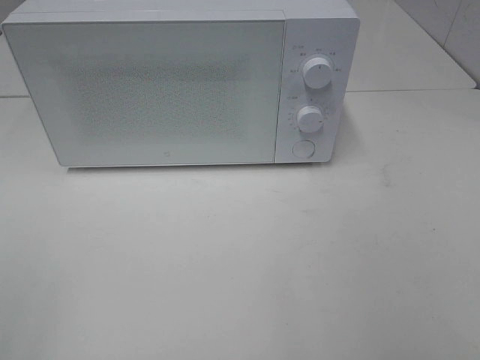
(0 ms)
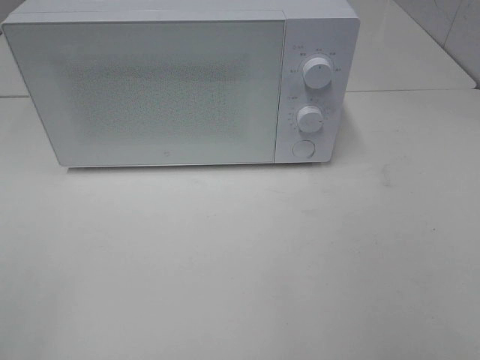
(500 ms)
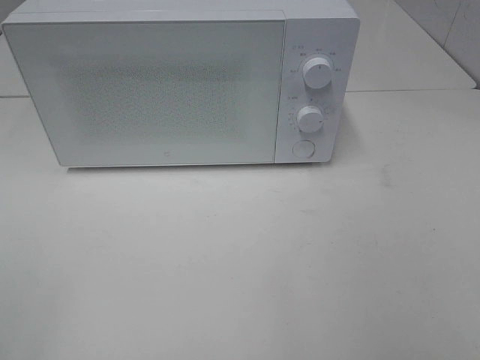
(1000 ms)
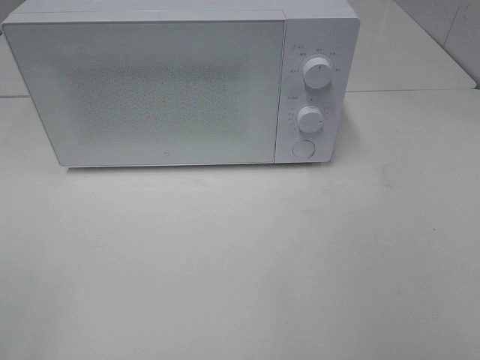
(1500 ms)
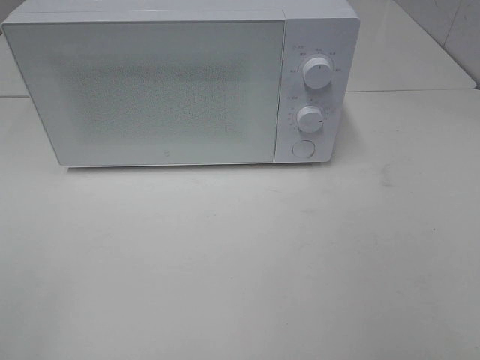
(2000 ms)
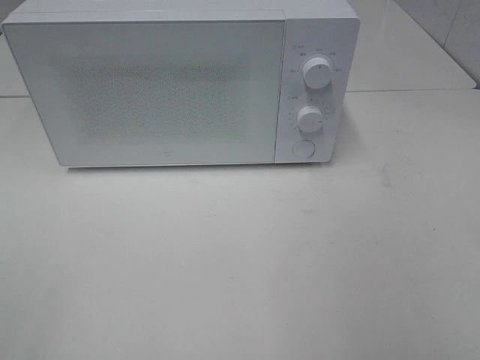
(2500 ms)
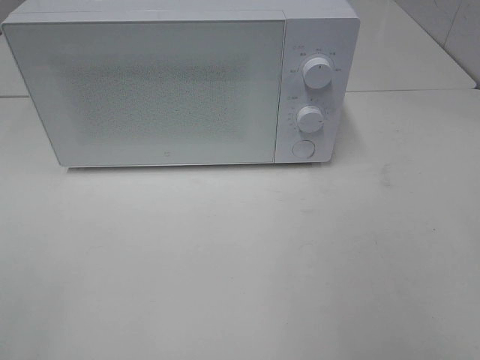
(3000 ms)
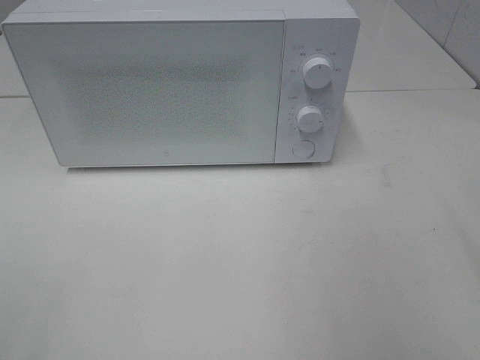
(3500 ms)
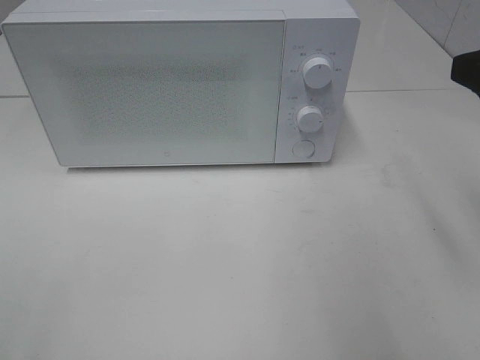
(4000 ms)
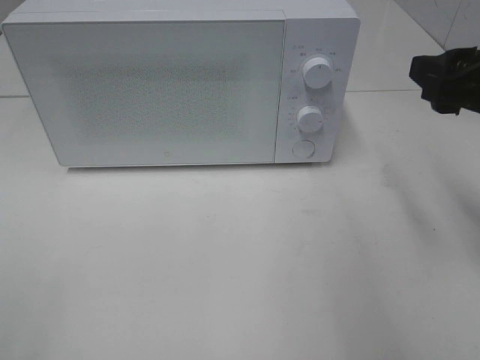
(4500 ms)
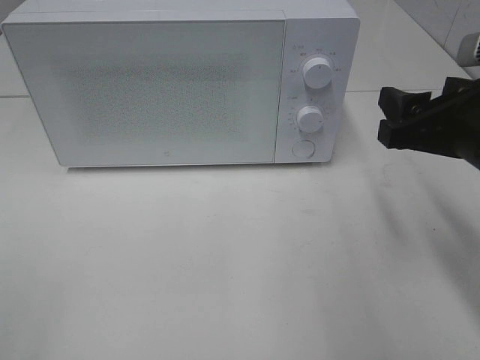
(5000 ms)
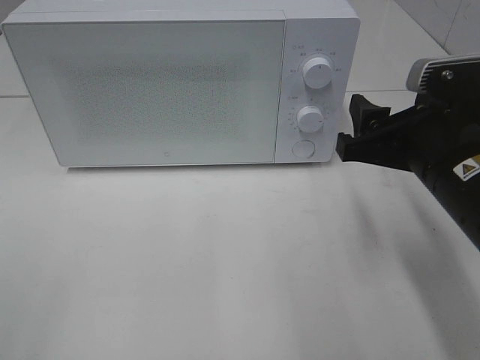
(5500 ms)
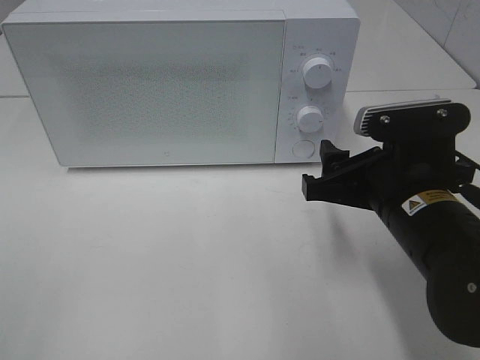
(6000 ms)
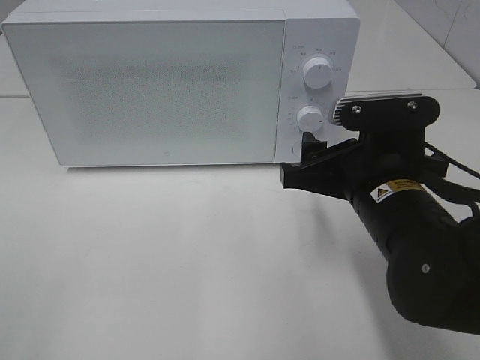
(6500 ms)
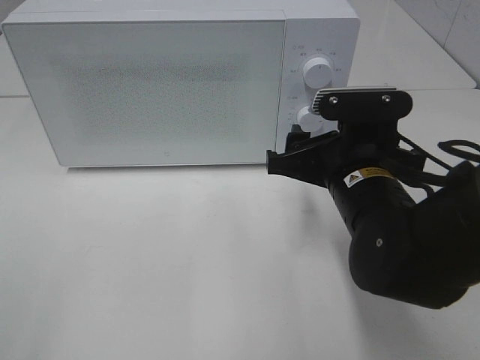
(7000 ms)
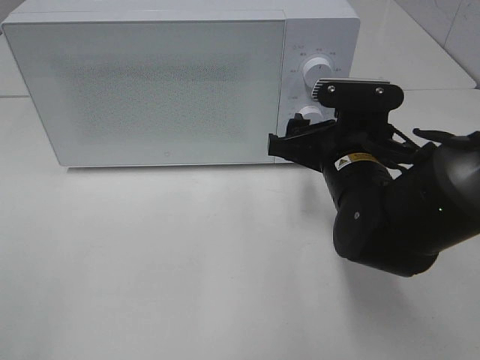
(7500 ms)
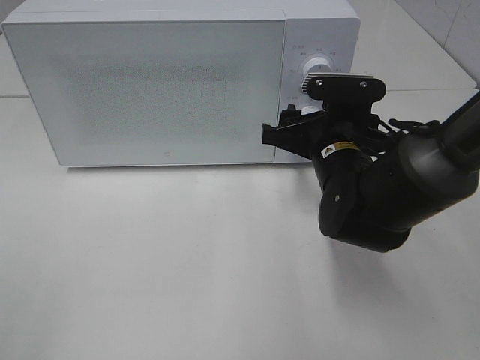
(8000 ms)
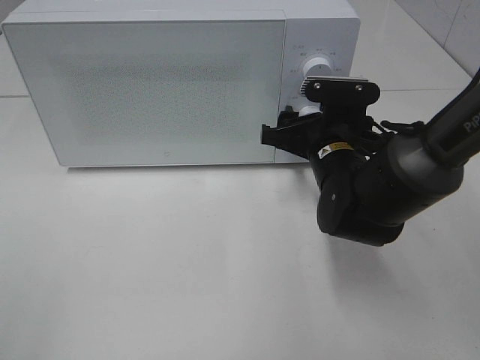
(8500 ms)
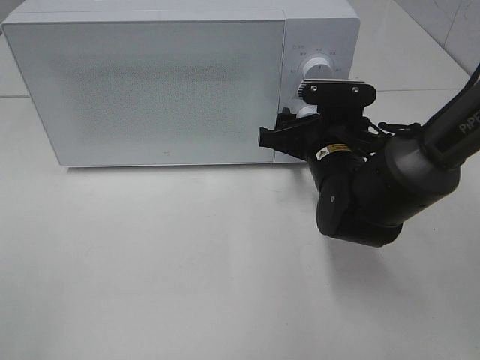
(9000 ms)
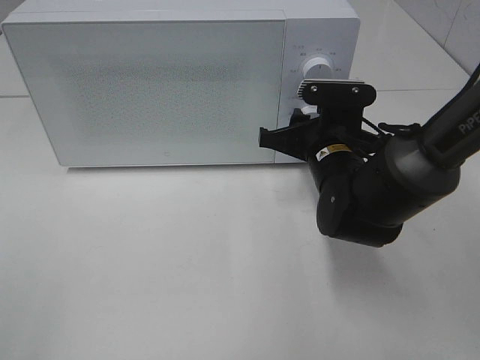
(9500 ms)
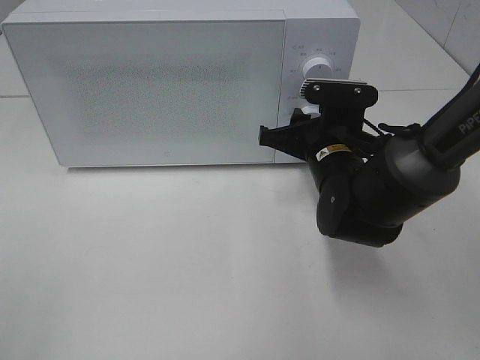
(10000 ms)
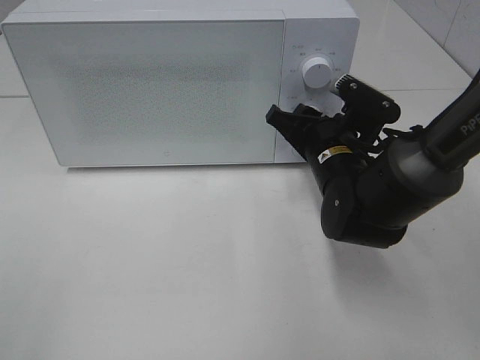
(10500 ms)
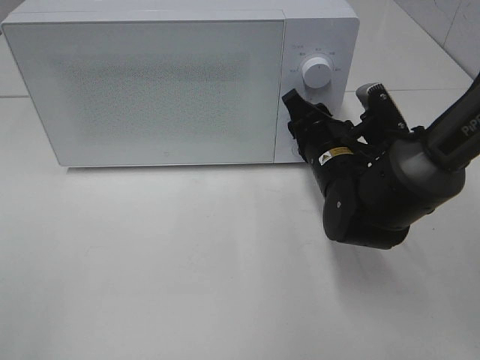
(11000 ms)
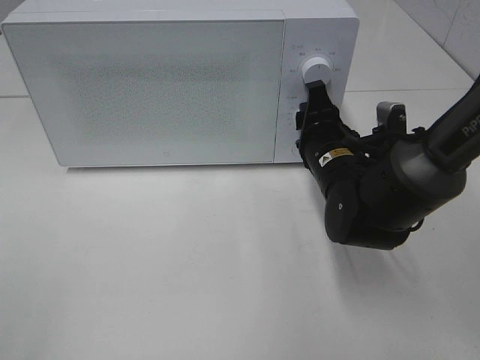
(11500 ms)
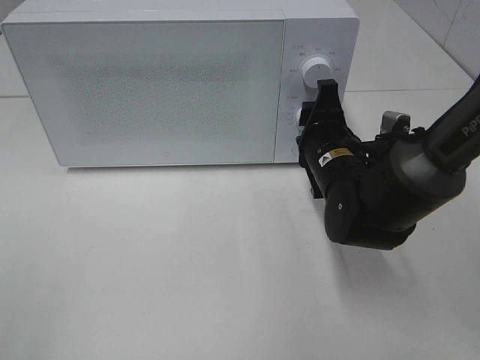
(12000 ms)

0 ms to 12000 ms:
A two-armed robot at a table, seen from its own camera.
Task of the whole recording: Heat the burger.
0 ms to 2000 ms: Neither gripper changes place.
2000 ms to 4000 ms: The right gripper travels forward by some 20 cm.
4000 ms to 6000 ms: The right gripper heads downward and to the left, covering some 15 cm.
6000 ms to 8000 ms: The right gripper is displaced forward by roughly 10 cm.
8000 ms to 10000 ms: The right gripper closes.

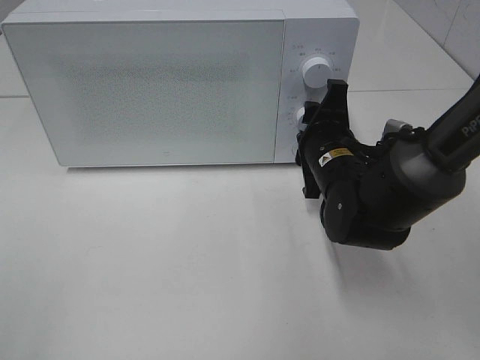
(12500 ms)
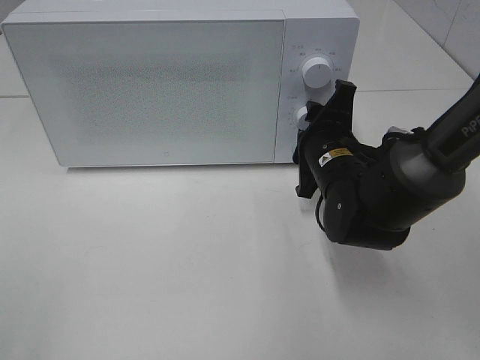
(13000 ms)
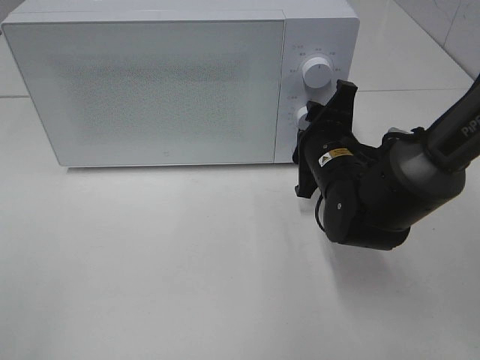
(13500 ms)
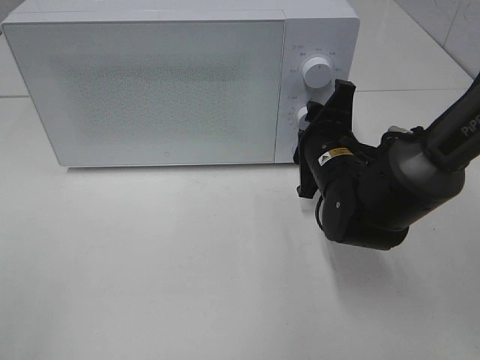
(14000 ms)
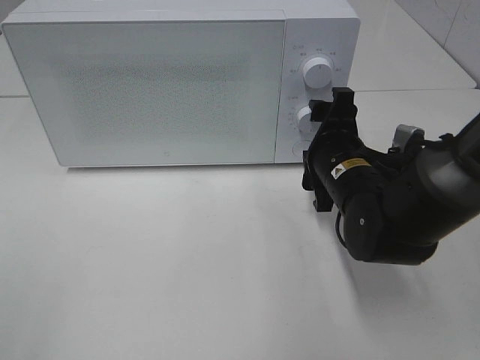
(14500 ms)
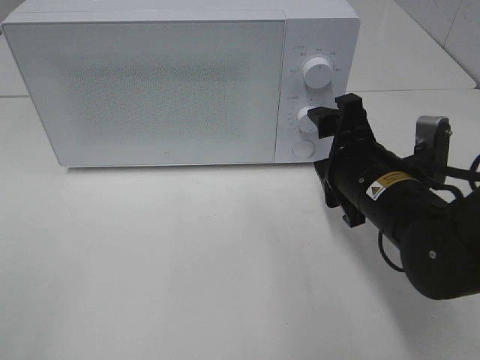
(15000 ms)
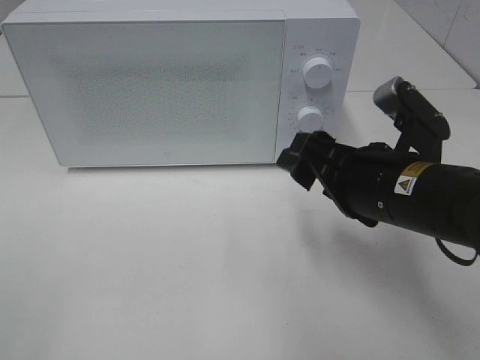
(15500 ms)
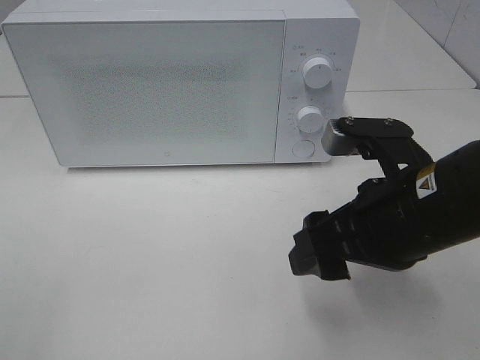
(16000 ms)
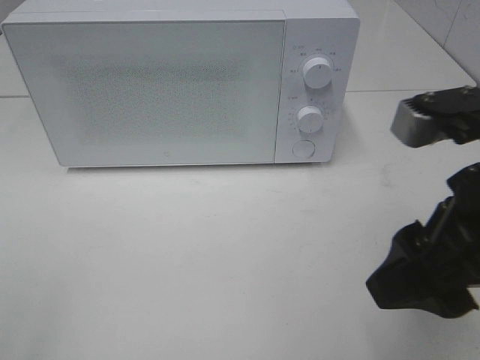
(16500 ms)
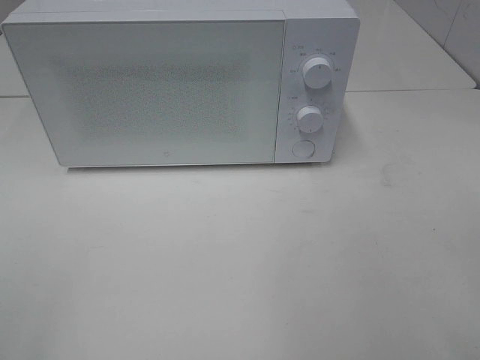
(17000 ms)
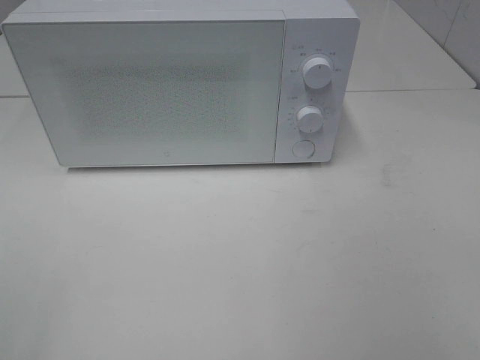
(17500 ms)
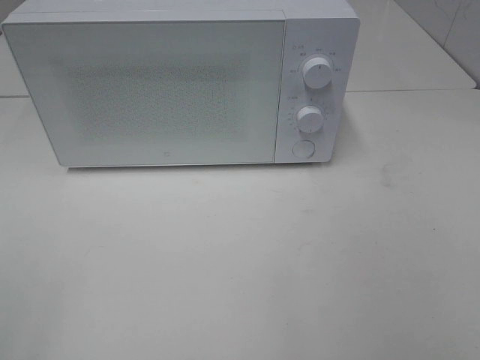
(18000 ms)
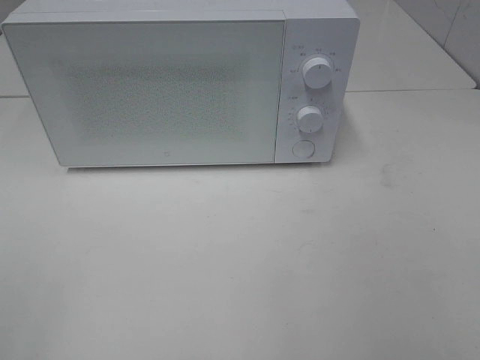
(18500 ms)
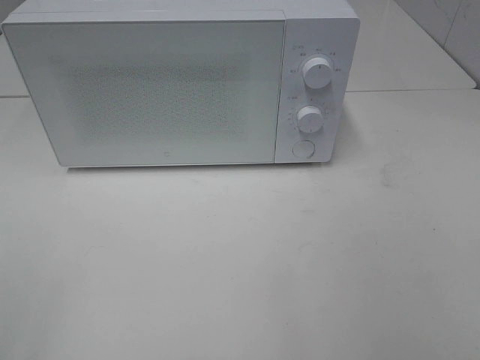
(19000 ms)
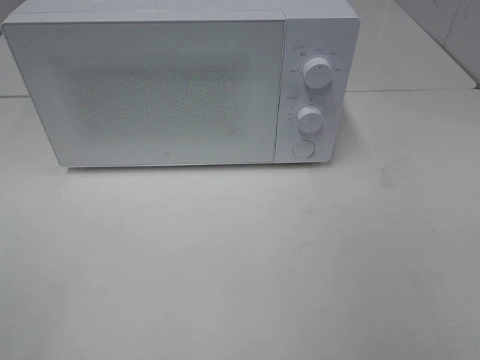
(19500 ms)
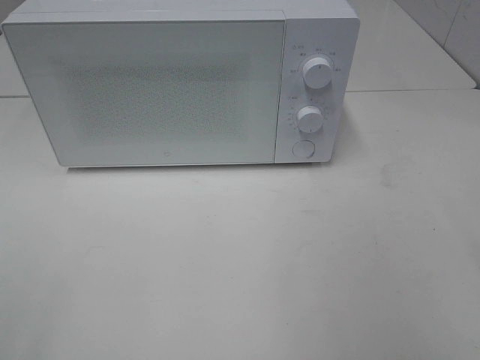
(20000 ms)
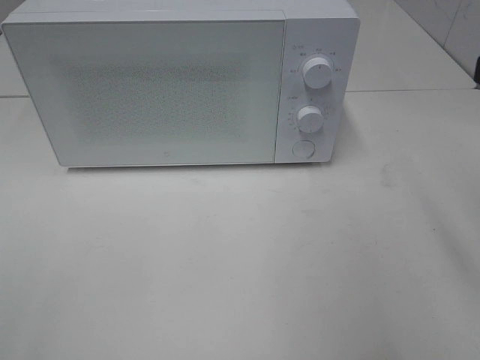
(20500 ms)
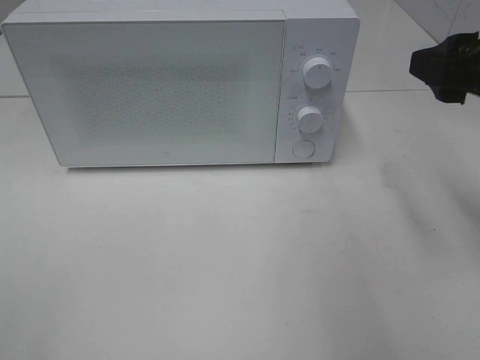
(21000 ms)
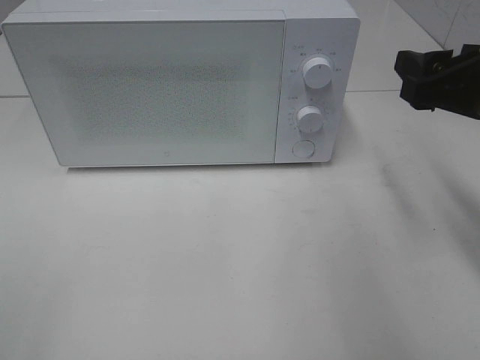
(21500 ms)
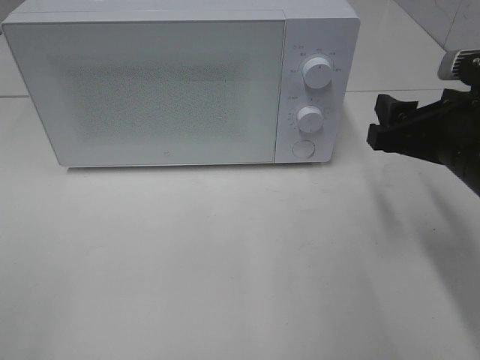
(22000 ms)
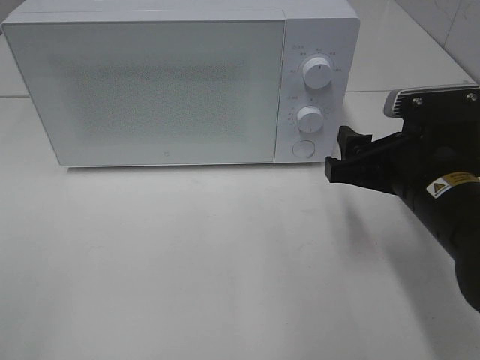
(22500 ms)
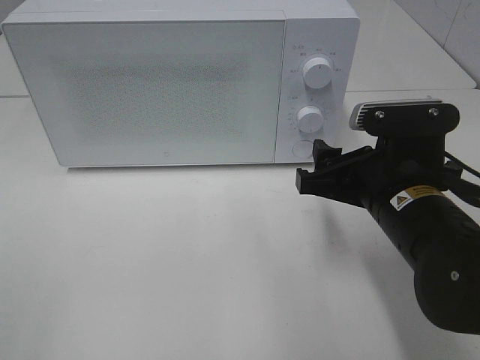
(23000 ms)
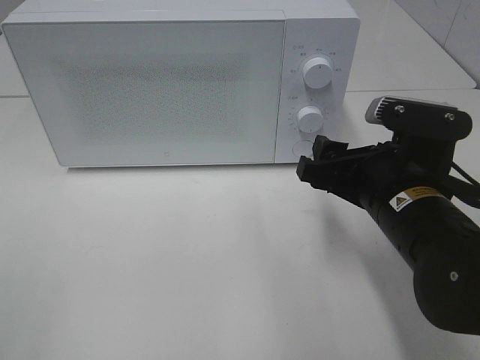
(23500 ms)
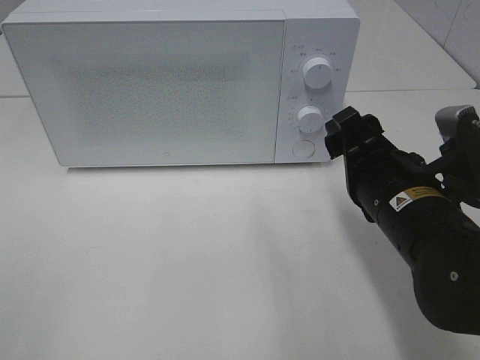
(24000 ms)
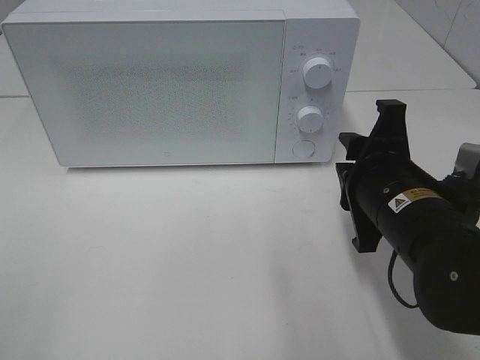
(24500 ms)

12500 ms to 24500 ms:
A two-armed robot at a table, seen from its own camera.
Task of the whole recording: Heat the burger.
Step, 12500 ms to 14500 ms: Right hand: twist timer button.
12500 ms to 14500 ms: The right gripper opens its fingers.
14500 ms to 16500 ms: The right gripper travels backward and upward by approximately 20 cm.
16500 ms to 18500 ms: The right gripper shifts approximately 20 cm backward and to the right.
20500 ms to 22500 ms: The right gripper moves downward, to the left and forward, about 15 cm.
22500 ms to 24500 ms: The right gripper closes up.

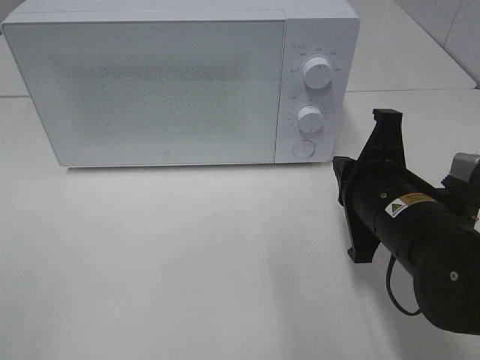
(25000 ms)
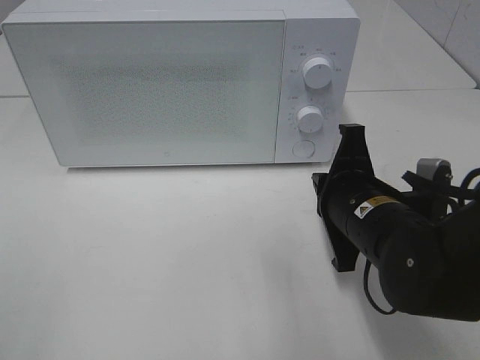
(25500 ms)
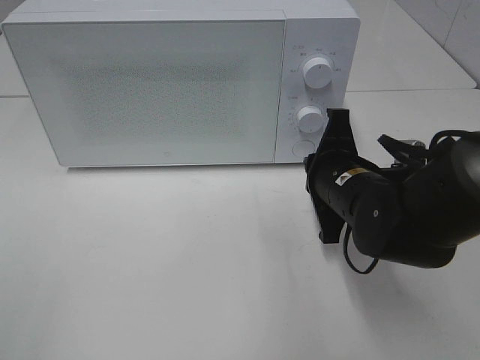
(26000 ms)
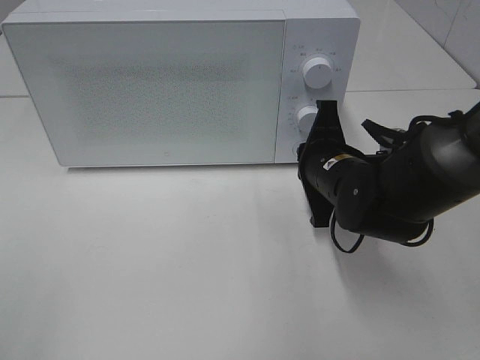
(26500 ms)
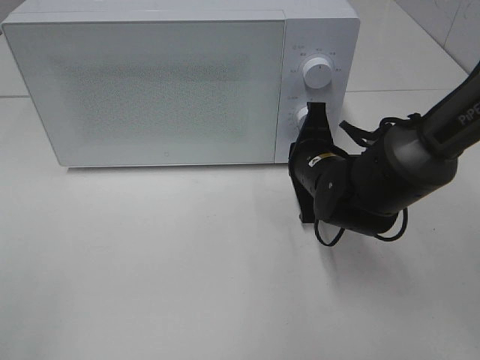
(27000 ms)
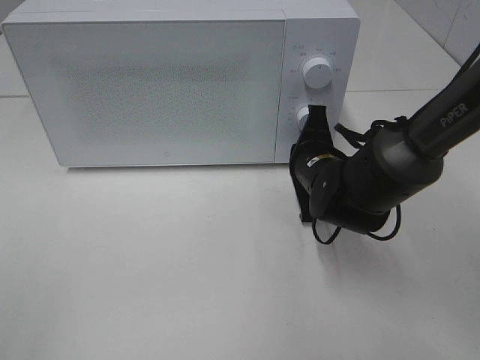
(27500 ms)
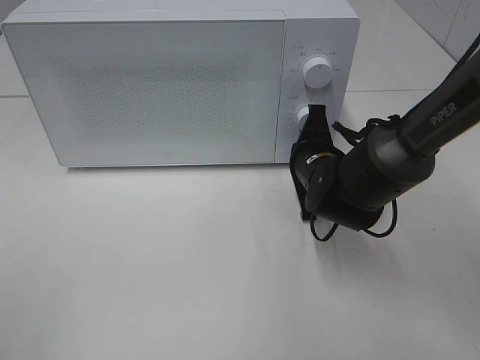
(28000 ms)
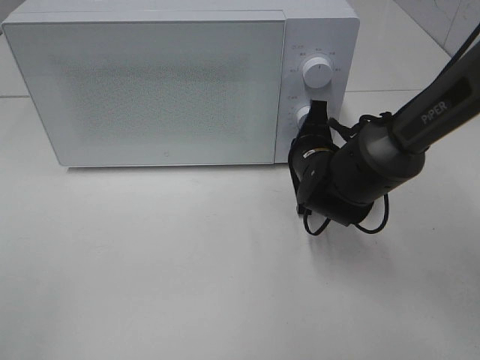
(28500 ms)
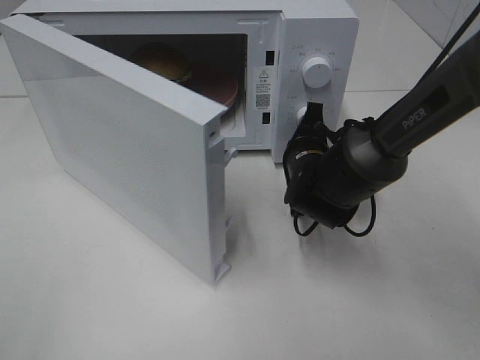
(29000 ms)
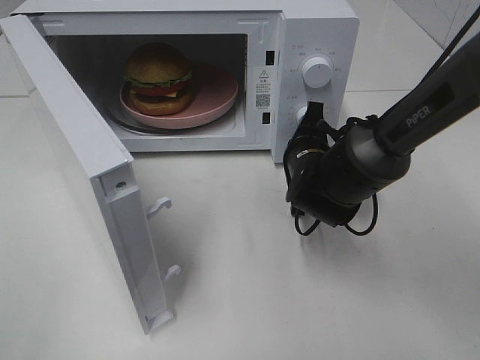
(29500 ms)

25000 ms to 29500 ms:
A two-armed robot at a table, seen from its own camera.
Task of the whole recording: Heat the burger.
25000 ms to 27000 ms: The right gripper moves forward and downward, some 10 cm.
